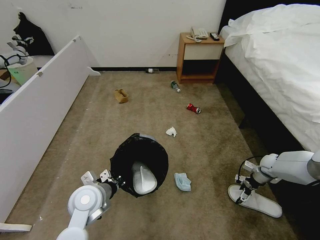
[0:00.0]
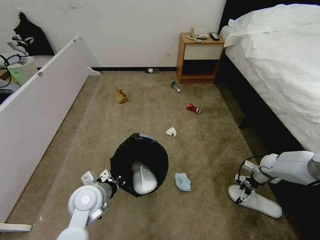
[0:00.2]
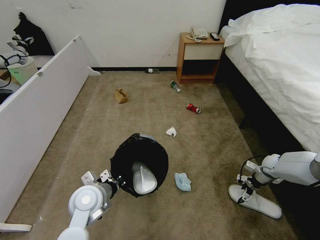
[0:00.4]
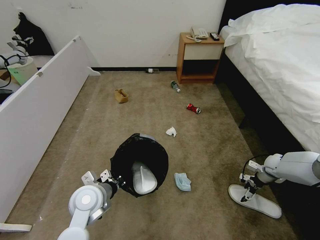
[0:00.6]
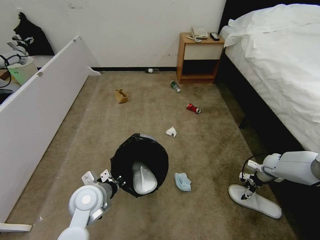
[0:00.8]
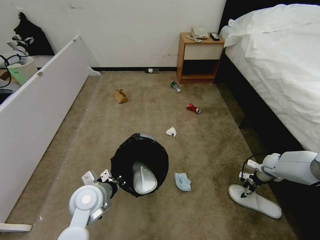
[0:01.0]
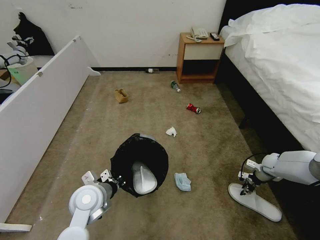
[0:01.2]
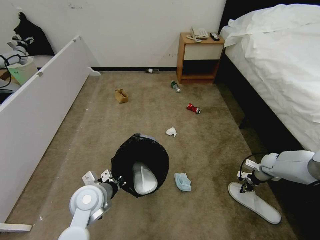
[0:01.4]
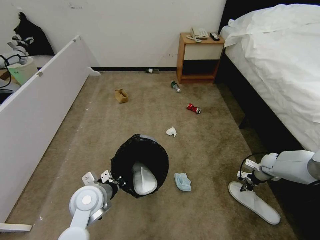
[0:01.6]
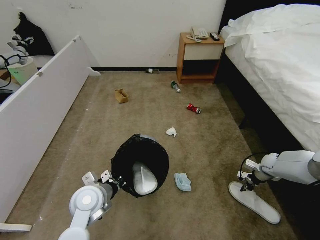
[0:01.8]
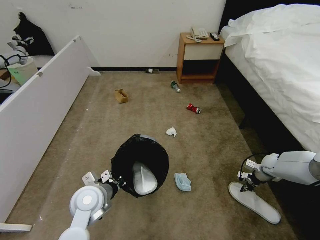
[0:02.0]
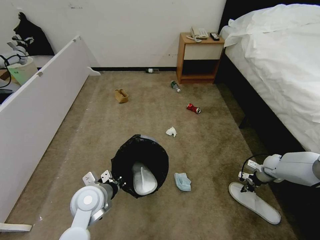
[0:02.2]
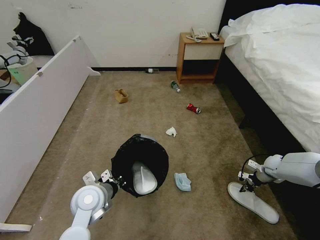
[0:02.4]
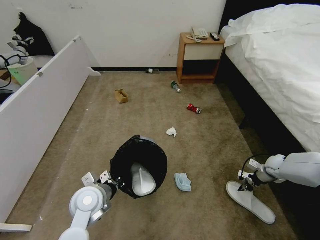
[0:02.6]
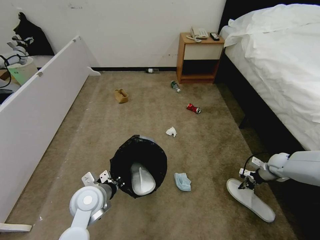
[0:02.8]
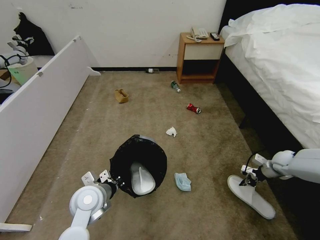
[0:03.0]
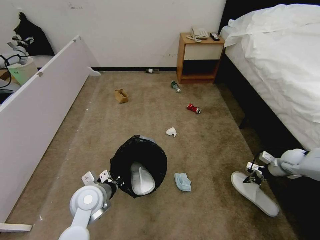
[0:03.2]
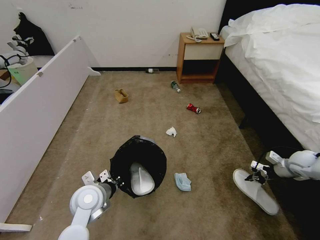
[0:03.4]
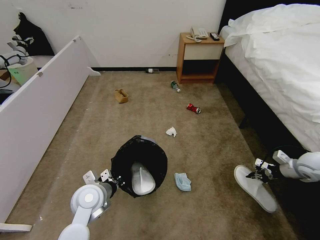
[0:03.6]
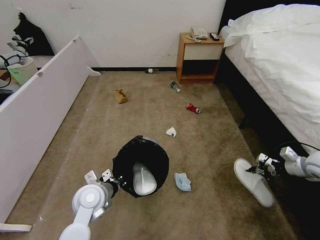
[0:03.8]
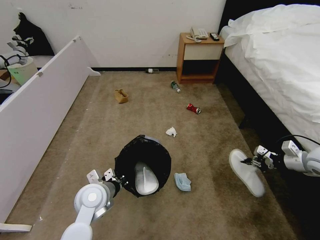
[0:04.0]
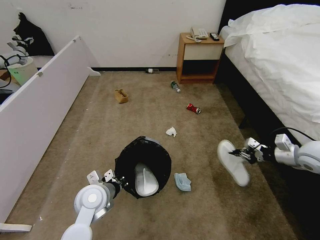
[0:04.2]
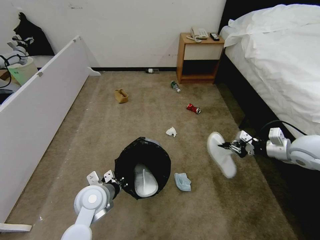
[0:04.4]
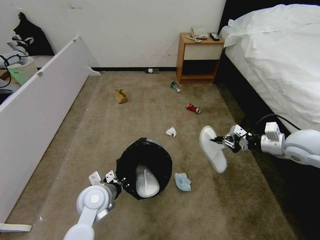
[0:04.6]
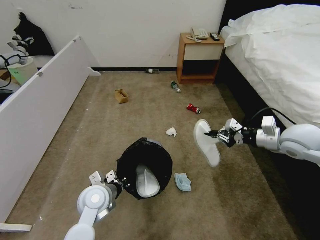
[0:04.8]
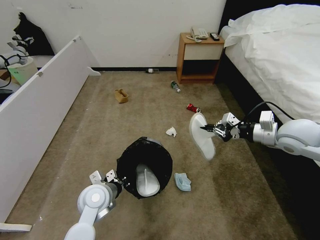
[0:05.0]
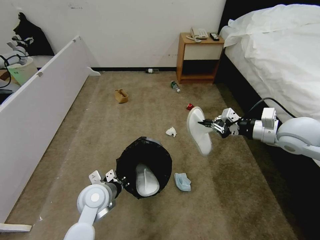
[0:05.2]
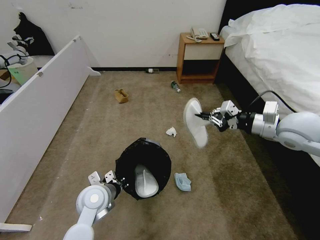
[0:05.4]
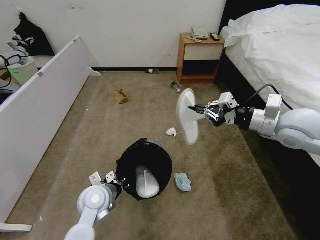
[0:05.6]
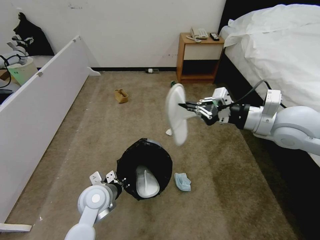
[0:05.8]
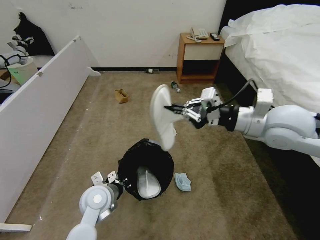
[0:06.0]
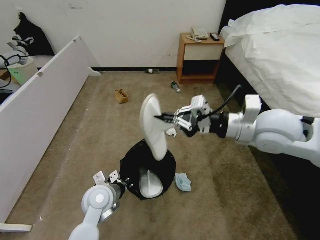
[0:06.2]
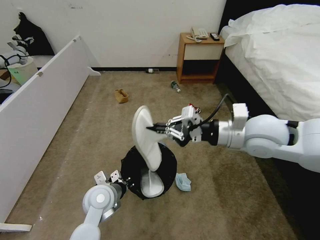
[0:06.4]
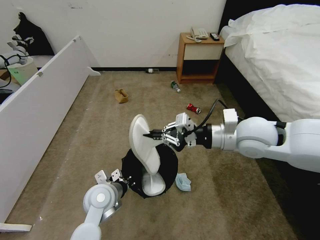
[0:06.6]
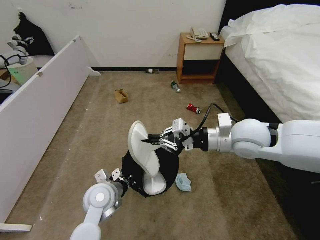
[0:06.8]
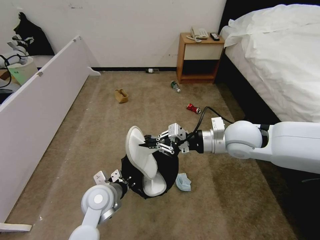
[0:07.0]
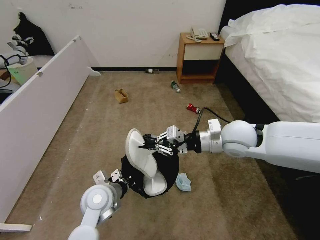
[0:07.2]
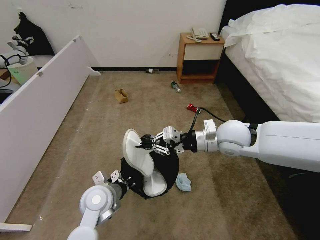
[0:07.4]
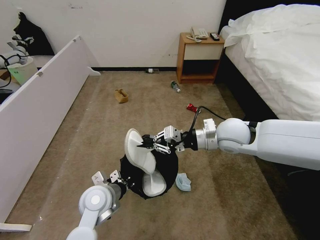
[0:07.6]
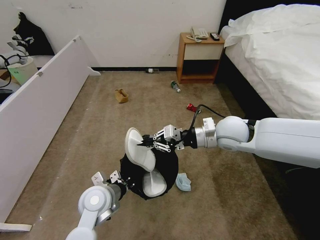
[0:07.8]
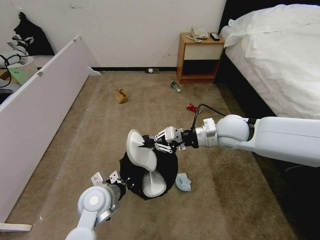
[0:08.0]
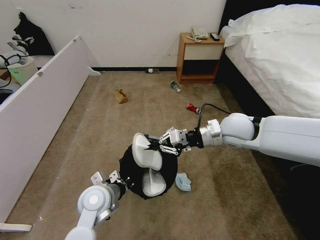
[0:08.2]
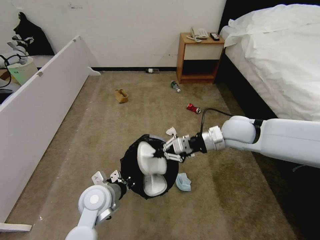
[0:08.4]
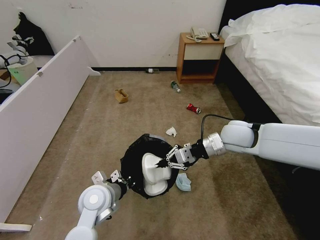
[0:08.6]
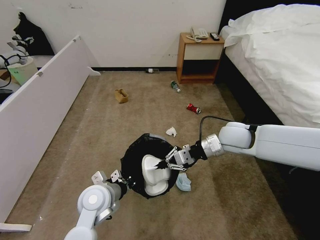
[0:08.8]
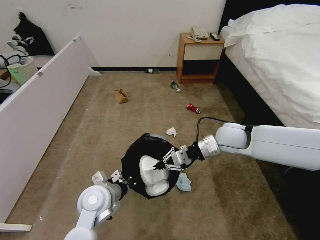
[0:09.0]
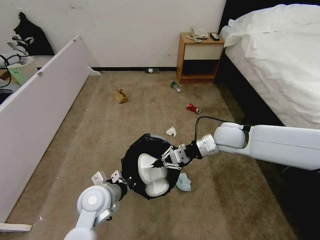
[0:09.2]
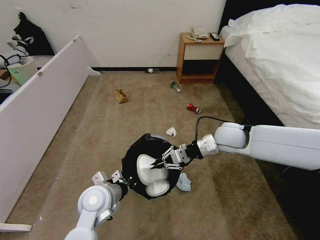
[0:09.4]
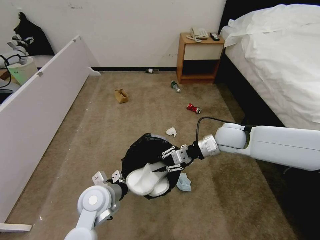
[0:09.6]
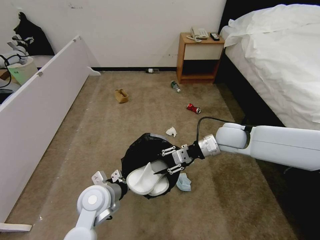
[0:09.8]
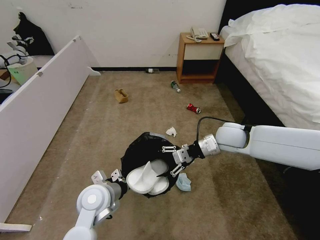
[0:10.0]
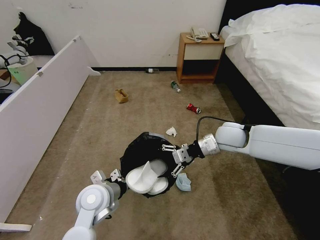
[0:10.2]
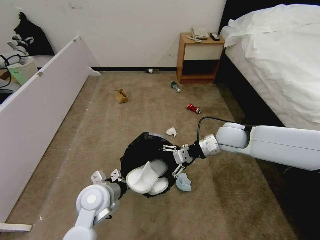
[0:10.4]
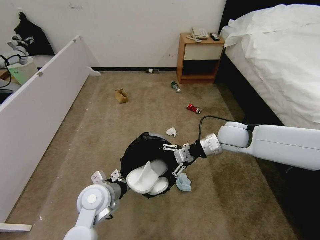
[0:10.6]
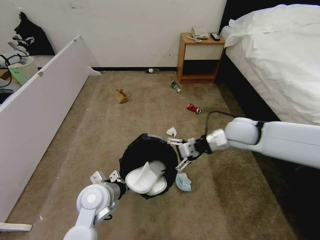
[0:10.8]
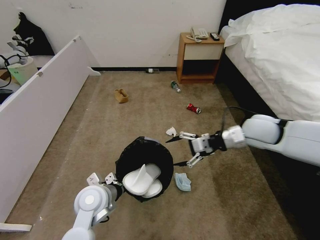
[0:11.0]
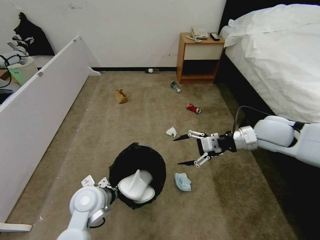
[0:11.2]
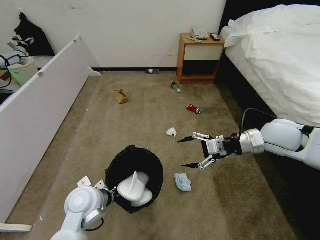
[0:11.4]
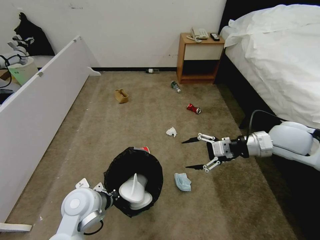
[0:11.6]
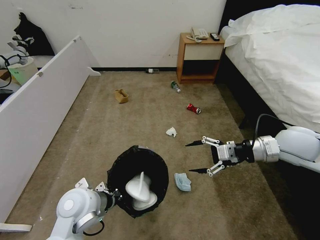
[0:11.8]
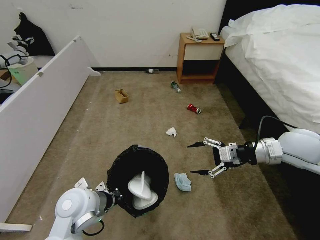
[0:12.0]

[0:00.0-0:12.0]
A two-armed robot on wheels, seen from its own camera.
Task of the whole recording: Pick up the trash bin and place the garbage on the floor into it.
0:00.0 to 0:01.6: The right gripper closes its fingers.
0:01.6 to 0:03.0: The grippers make only small movements.
0:03.0 to 0:04.4: The right gripper is displaced upward and to the left by roughly 20 cm.
0:04.4 to 0:06.0: The right gripper is displaced to the left and upward by roughly 20 cm.
0:06.0 to 0:07.6: The right gripper goes some 10 cm downward, to the left and forward.
0:07.6 to 0:09.0: The right gripper shifts by about 5 cm.
0:09.0 to 0:10.4: The right gripper opens its fingers.
0:10.4 to 0:12.0: The right gripper heads to the right, backward and upward, covering some 15 cm. Meanwhile the left gripper changes place by approximately 5 cm.

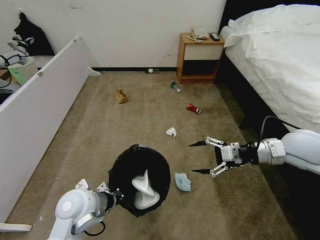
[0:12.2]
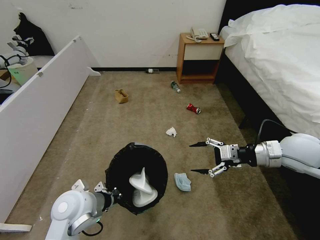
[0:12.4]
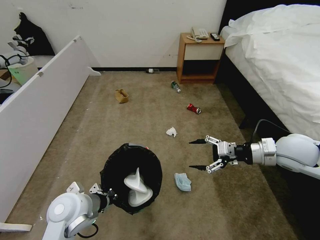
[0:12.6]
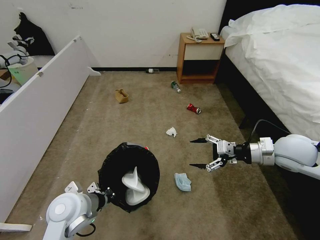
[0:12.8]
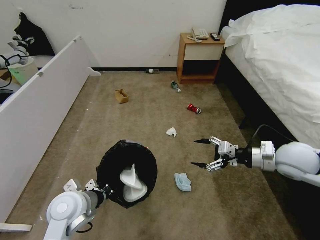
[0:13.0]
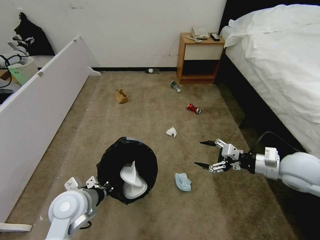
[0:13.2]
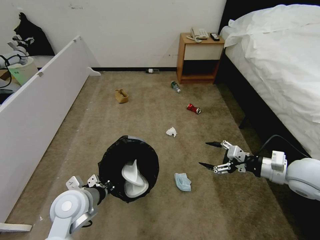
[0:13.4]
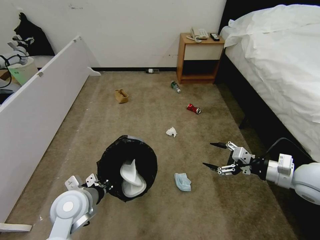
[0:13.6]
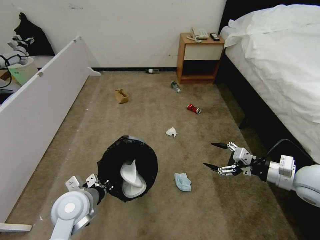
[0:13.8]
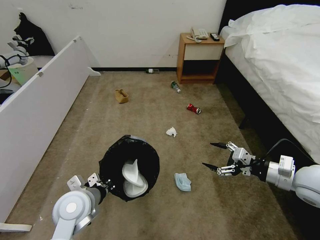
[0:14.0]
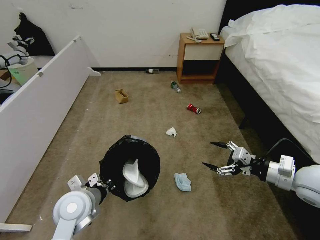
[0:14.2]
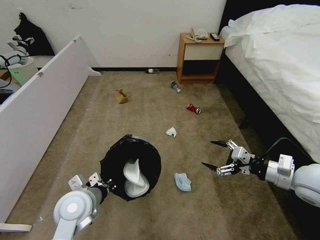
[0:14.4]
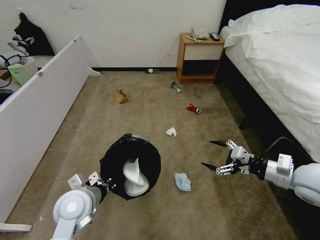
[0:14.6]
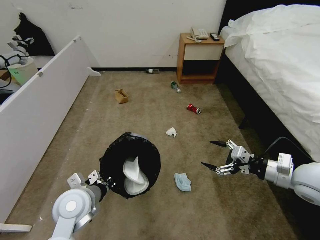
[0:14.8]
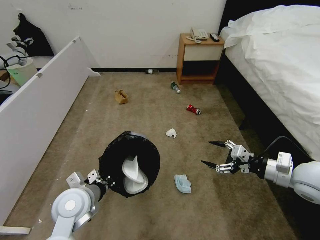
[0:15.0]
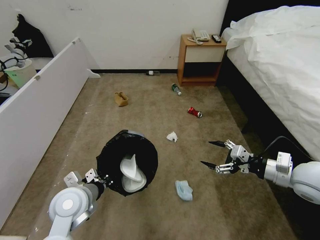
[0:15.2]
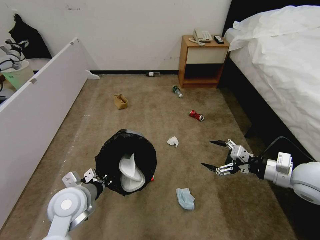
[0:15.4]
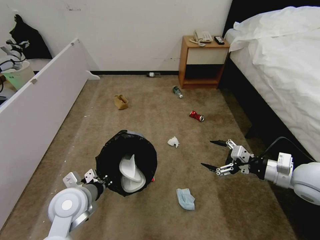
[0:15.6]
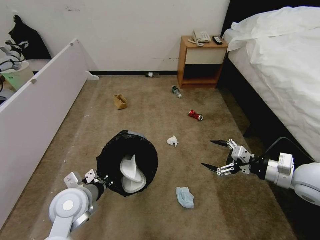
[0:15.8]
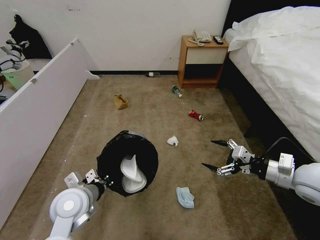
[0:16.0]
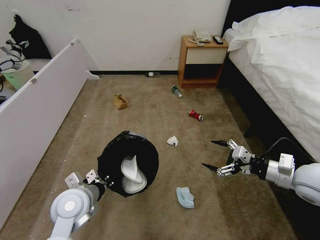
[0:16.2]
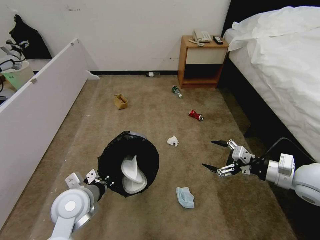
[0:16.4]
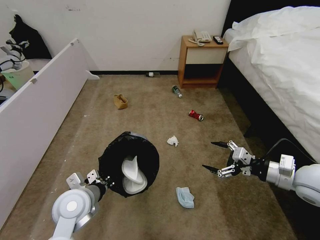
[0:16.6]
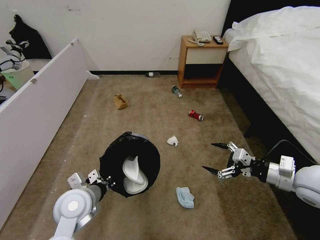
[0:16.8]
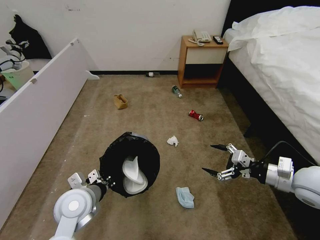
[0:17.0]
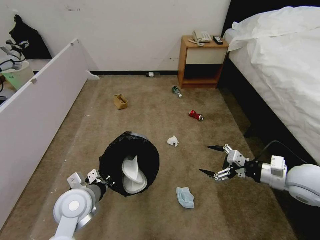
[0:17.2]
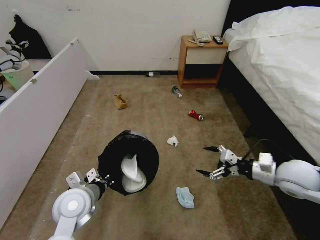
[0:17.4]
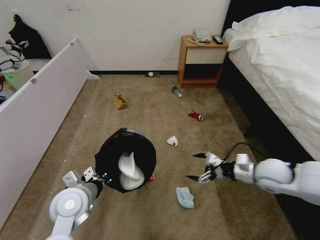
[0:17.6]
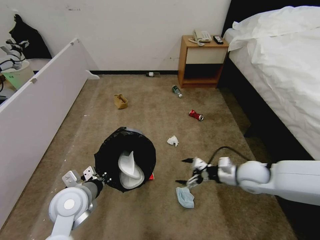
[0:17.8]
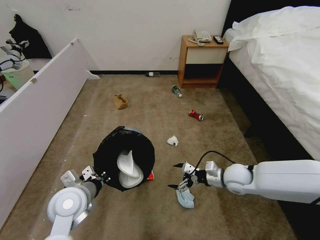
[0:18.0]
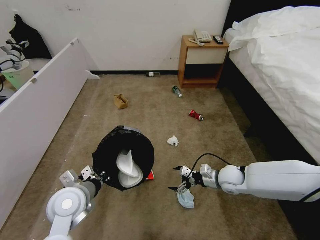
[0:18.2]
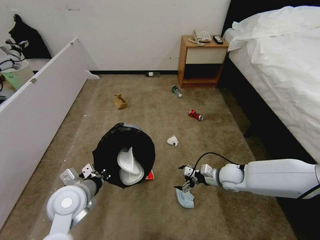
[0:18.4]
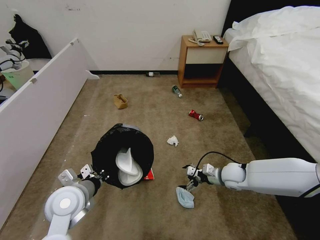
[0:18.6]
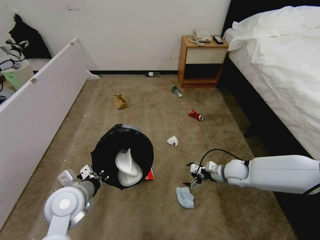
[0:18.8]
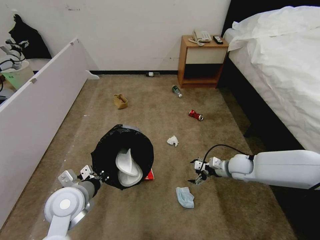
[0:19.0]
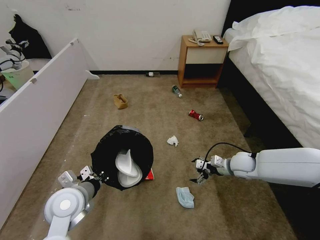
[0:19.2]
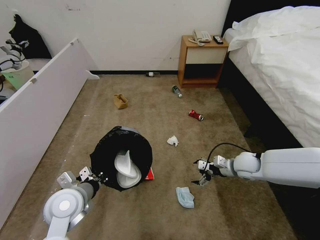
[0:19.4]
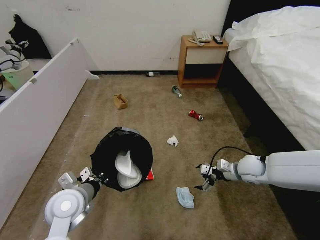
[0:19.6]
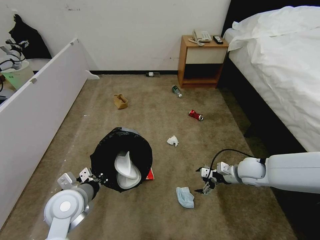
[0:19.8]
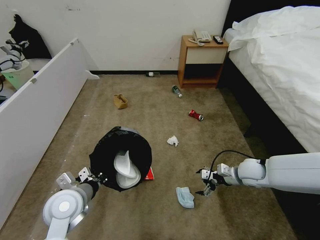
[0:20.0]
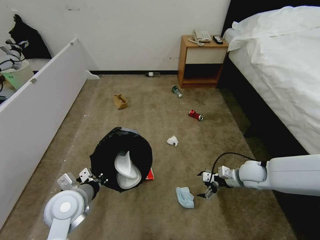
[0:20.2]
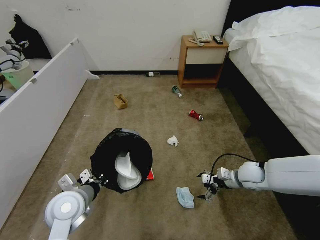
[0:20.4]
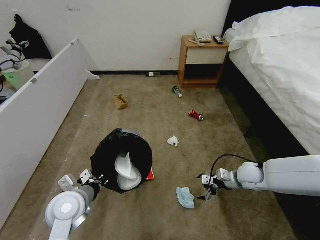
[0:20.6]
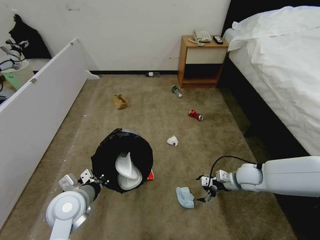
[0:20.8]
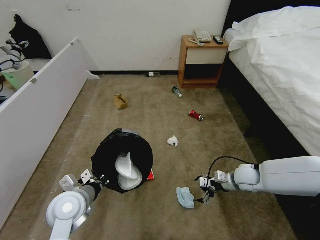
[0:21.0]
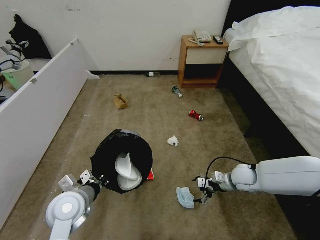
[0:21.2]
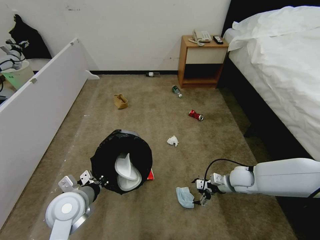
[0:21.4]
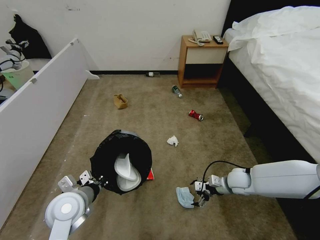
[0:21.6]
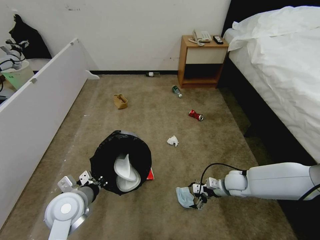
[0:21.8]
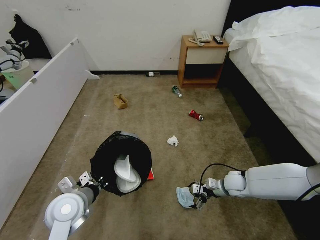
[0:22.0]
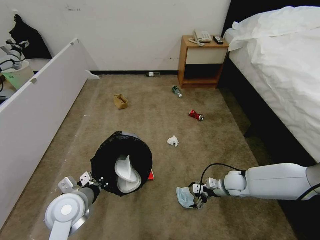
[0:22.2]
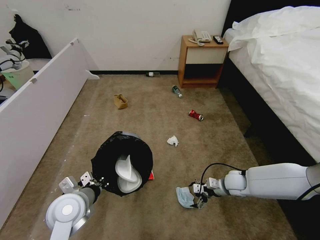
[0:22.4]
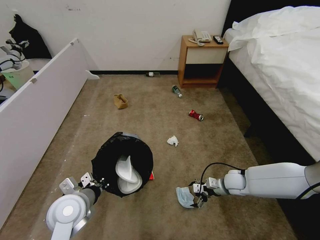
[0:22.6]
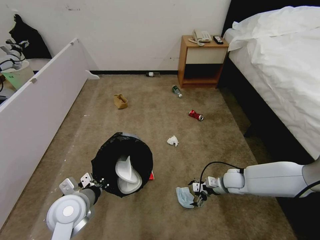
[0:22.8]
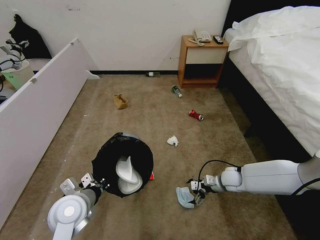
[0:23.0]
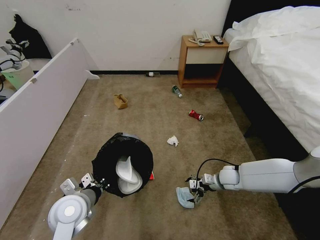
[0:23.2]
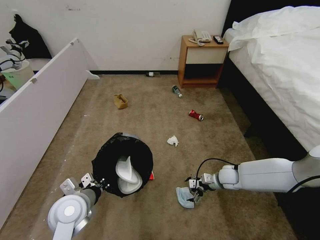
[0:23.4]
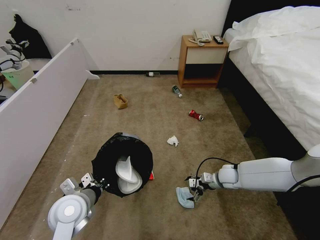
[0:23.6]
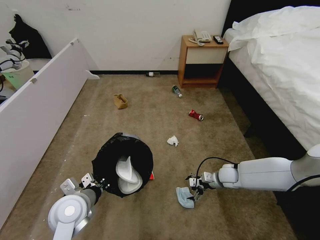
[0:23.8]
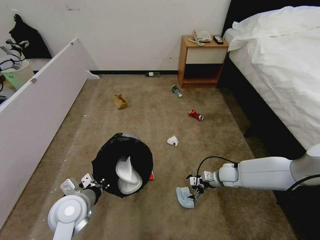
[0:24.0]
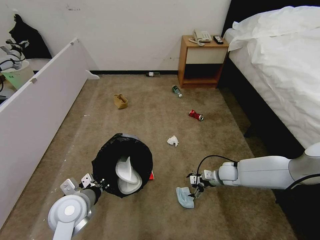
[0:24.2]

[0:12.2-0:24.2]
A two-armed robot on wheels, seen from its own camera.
Task of the whole recording: Pick up the trash bin and place the garbage on the floor into it.
0:12.2 to 0:13.8: The right gripper travels backward and downward by some 10 cm.
0:13.8 to 0:15.2: The grippers make only small movements.
0:15.2 to 0:16.6: Both grippers stay put.
0:16.6 to 0:18.2: The right gripper travels downward, to the left and forward by roughly 25 cm.
0:18.2 to 0:19.8: The right gripper goes approximately 5 cm to the right.
0:19.8 to 0:21.2: The grippers stay close to where they were, moving slightly.
0:21.2 to 0:22.6: The right gripper moves downward, about 5 cm.
0:22.6 to 0:24.2: There are only small adjustments of the grippers.
